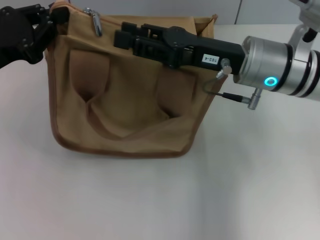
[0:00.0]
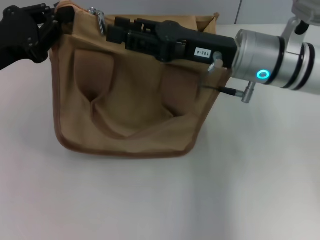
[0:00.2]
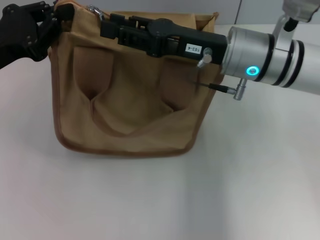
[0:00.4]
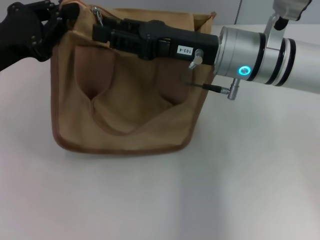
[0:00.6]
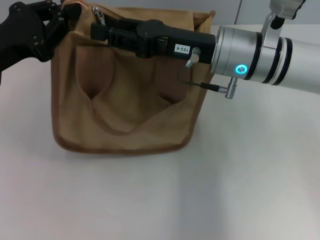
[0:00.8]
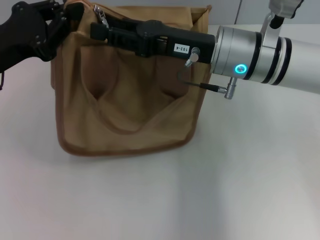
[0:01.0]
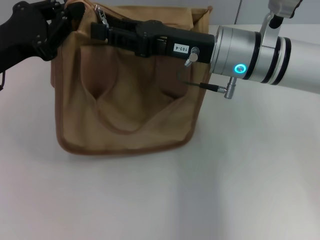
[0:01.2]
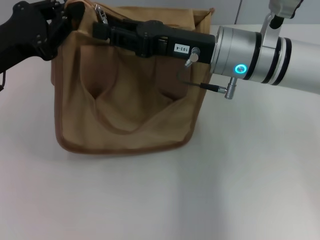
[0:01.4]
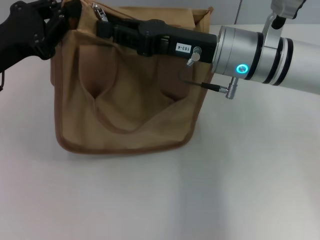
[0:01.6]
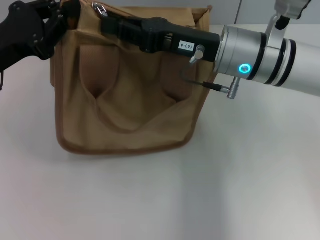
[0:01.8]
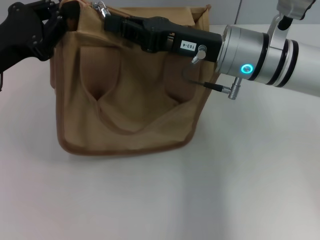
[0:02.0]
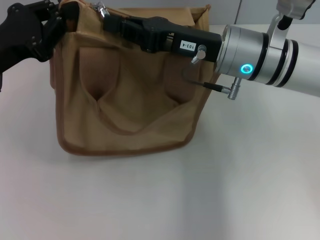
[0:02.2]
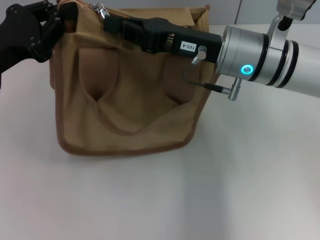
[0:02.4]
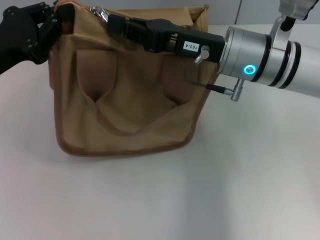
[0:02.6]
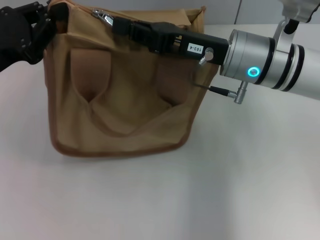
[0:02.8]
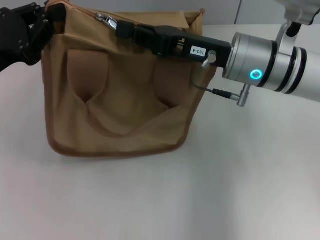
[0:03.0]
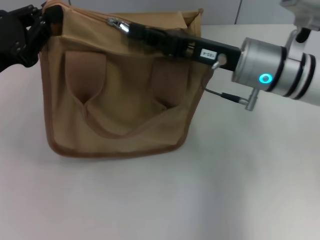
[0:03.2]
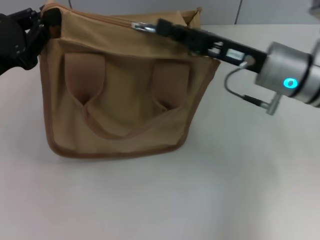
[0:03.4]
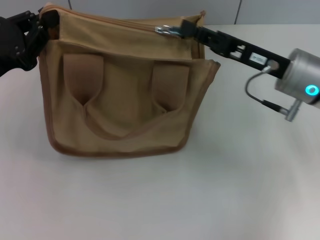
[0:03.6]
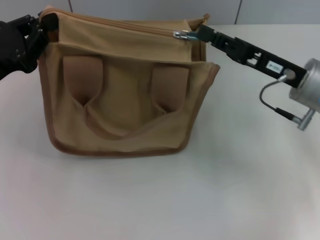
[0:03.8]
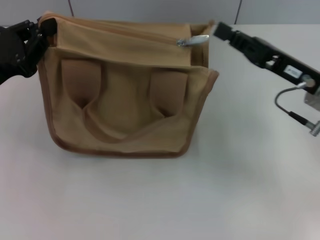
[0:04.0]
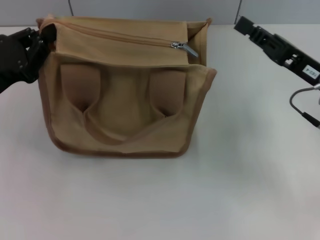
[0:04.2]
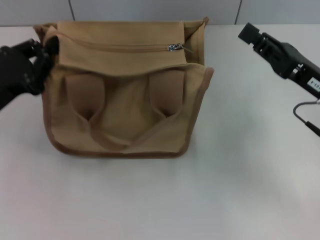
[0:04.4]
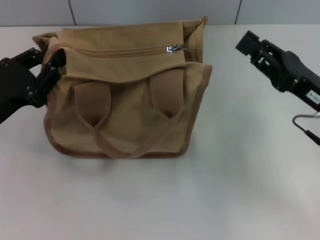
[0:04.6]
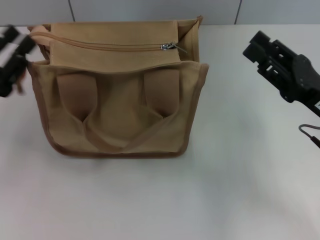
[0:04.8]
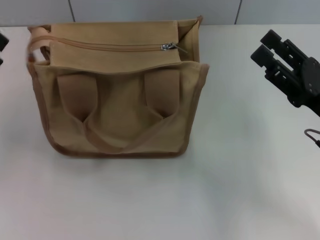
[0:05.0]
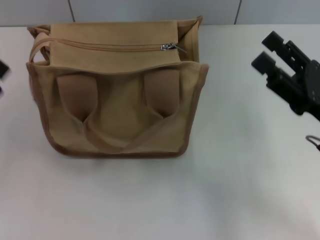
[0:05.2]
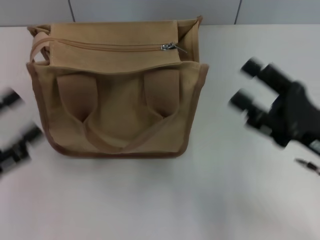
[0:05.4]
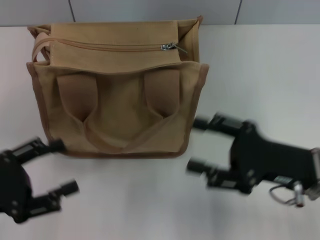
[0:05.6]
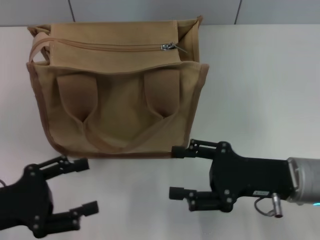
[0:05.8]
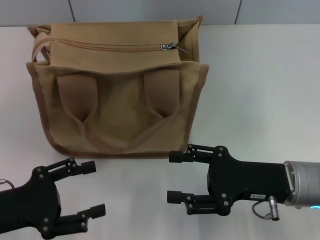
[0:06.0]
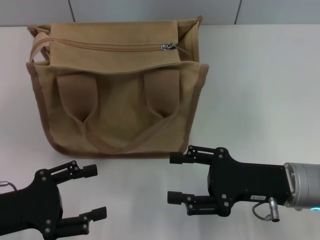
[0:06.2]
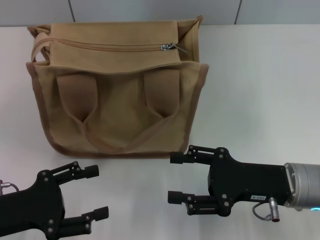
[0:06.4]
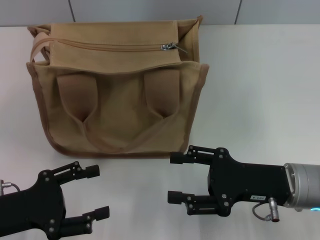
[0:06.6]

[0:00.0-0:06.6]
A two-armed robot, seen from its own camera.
Step, 0:00.0 to 0:03.8: Pull up the zipper with your right hand.
Step, 0:04.2 to 0:04.8: Grab the zipper with your left hand.
0:00.0 to 0:01.6: The grippers stay close to where they were, moving slightly.
0:01.6 to 0:03.2: The right gripper closes its fingers.
0:03.2 to 0:05.0: The left gripper shifts approximately 5 cm backward, and opens its fingers, while the right gripper heads to the right and backward, covering some 15 cm, and opens.
0:05.0 to 0:06.6: The right gripper is displaced to the left by about 5 cm; the left gripper shifts by some 5 cm, and opens its fingers.
